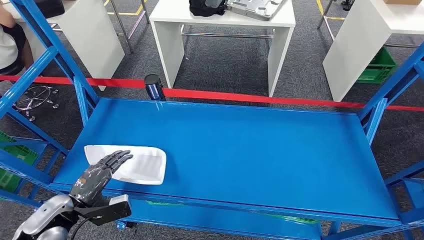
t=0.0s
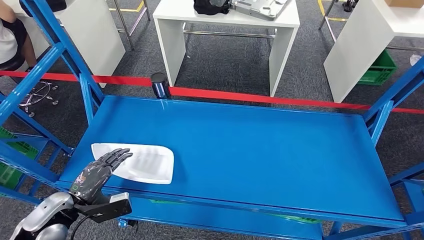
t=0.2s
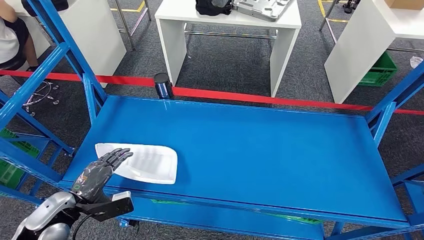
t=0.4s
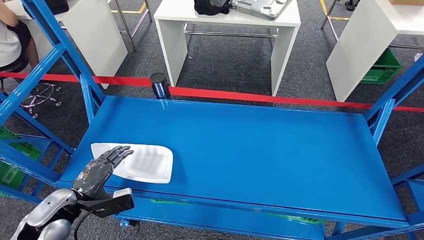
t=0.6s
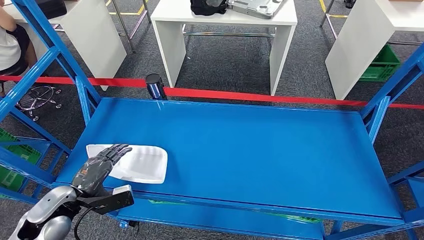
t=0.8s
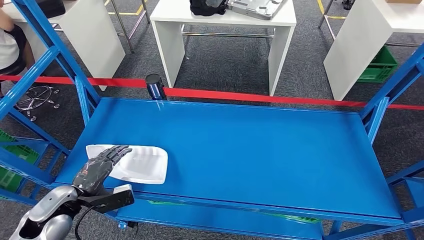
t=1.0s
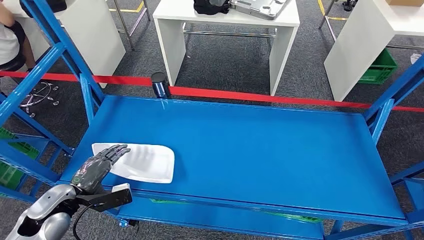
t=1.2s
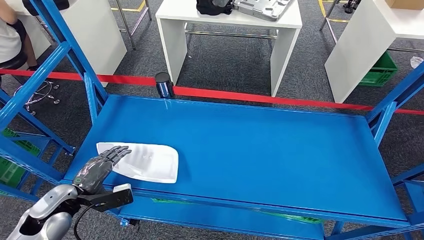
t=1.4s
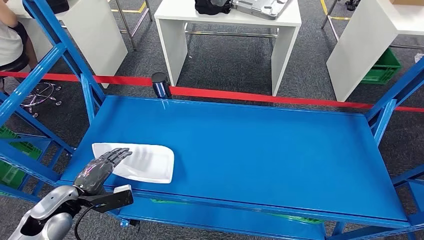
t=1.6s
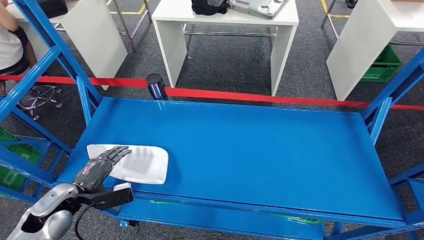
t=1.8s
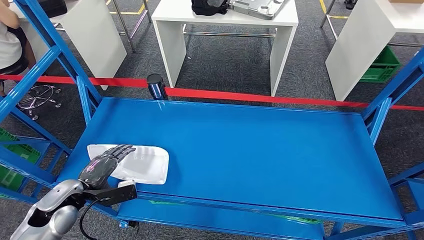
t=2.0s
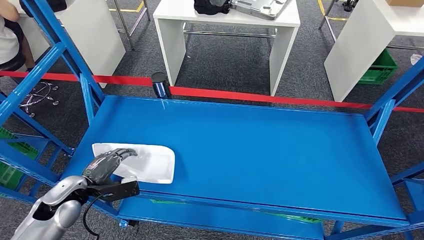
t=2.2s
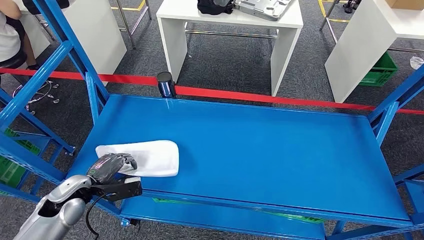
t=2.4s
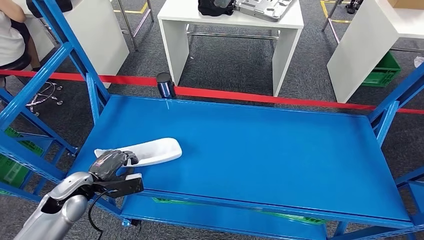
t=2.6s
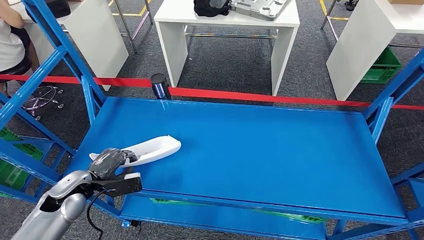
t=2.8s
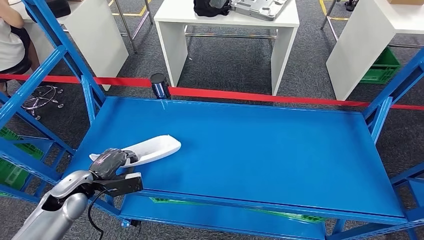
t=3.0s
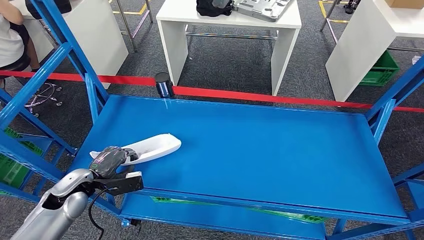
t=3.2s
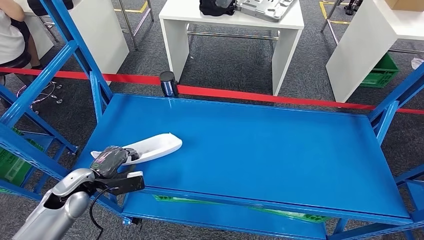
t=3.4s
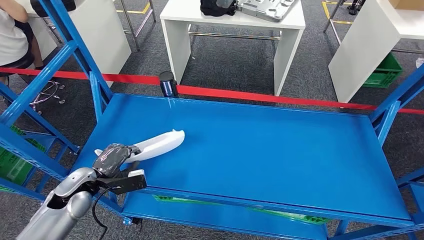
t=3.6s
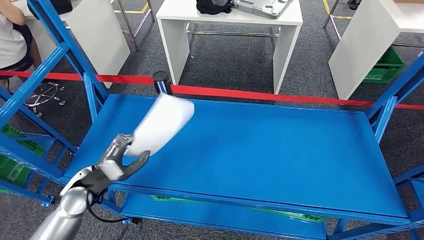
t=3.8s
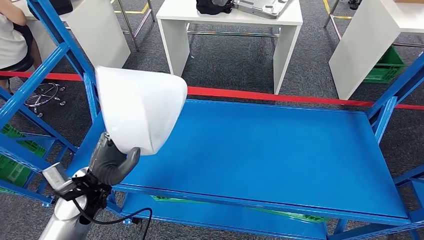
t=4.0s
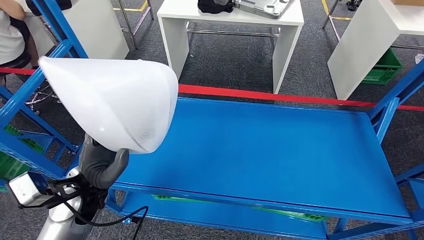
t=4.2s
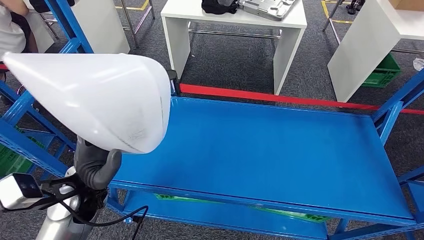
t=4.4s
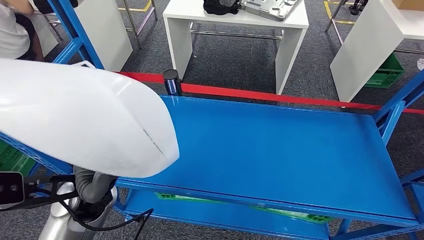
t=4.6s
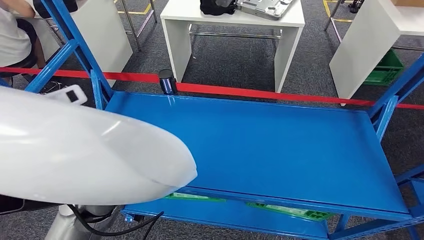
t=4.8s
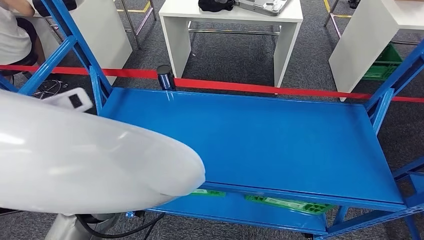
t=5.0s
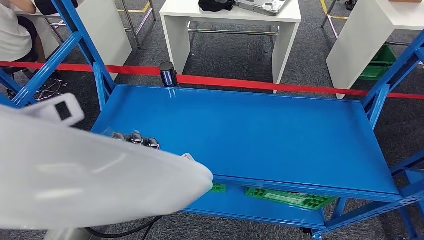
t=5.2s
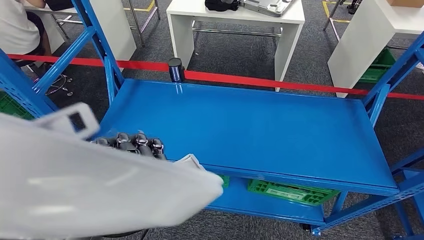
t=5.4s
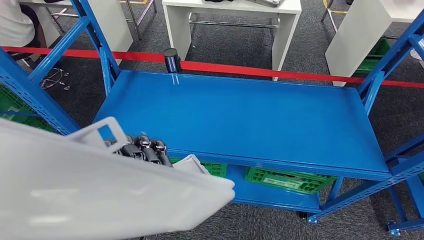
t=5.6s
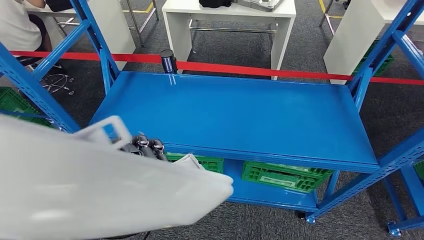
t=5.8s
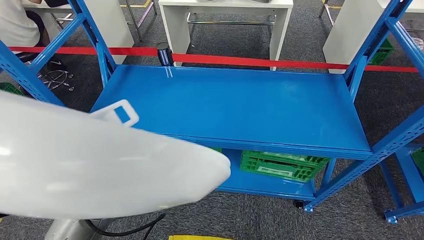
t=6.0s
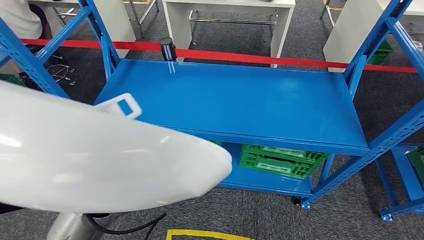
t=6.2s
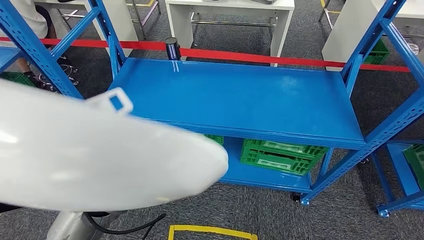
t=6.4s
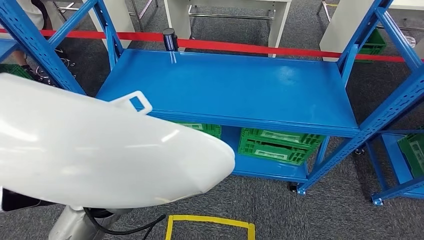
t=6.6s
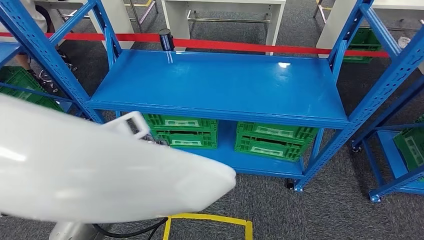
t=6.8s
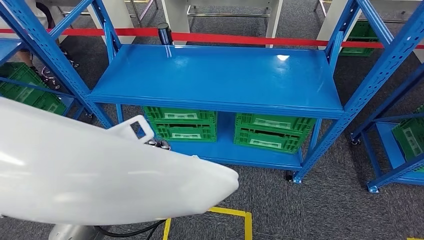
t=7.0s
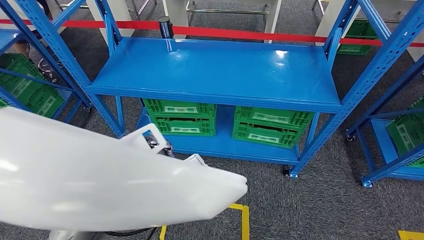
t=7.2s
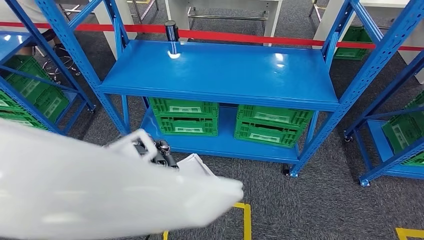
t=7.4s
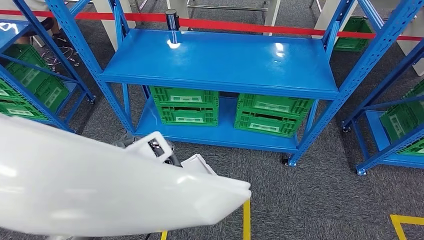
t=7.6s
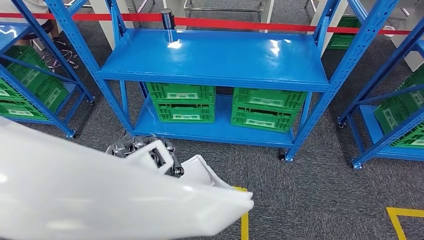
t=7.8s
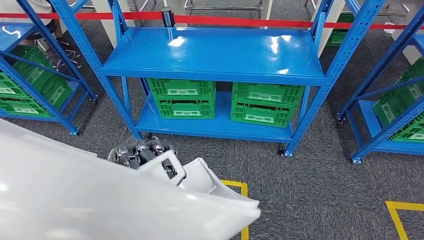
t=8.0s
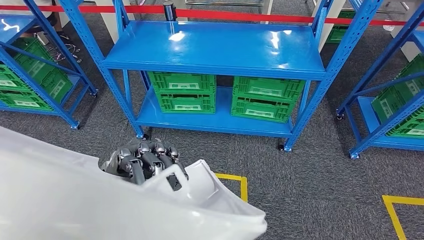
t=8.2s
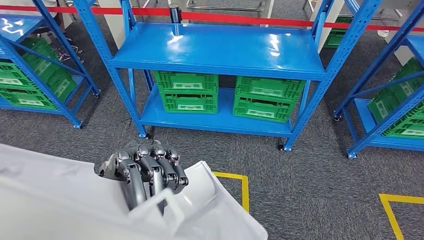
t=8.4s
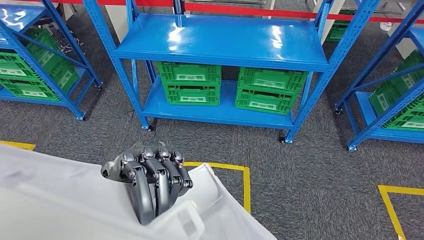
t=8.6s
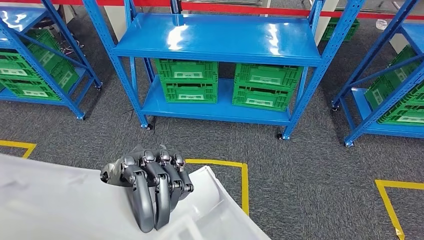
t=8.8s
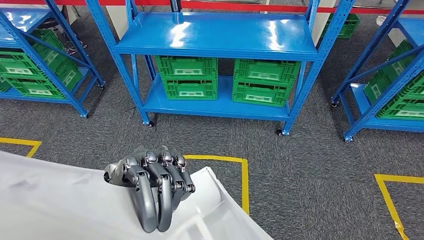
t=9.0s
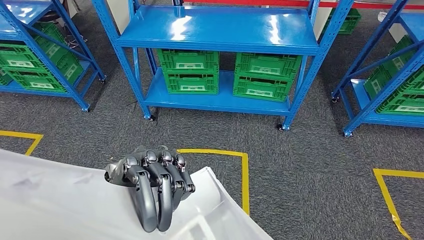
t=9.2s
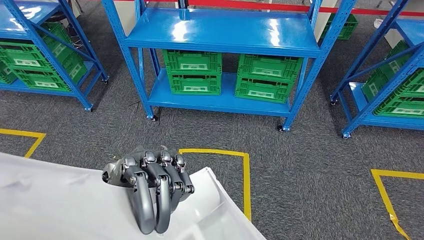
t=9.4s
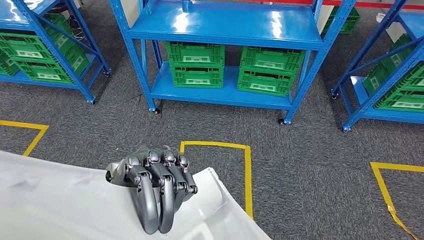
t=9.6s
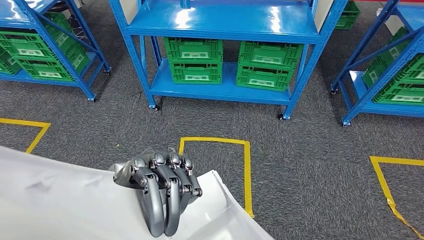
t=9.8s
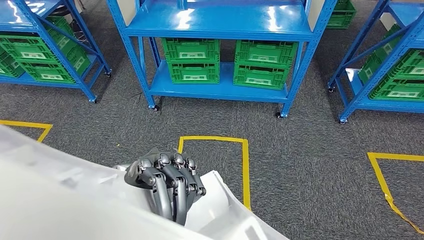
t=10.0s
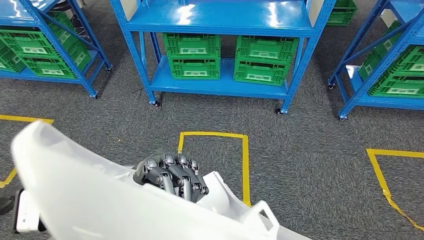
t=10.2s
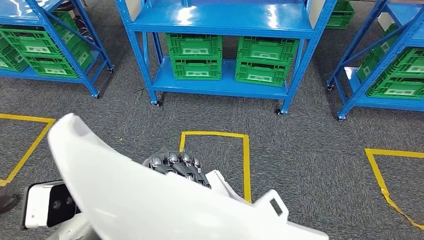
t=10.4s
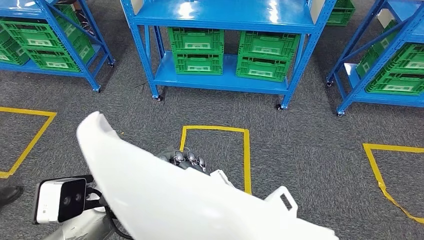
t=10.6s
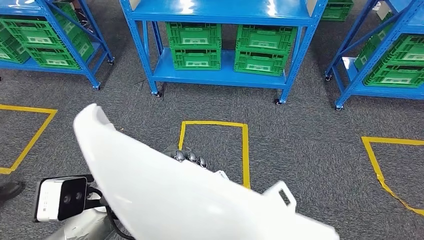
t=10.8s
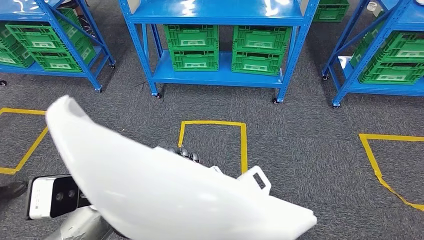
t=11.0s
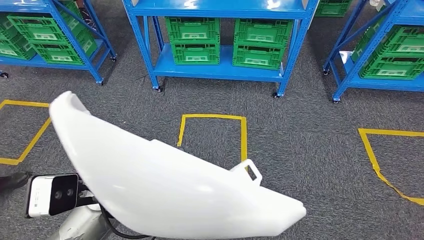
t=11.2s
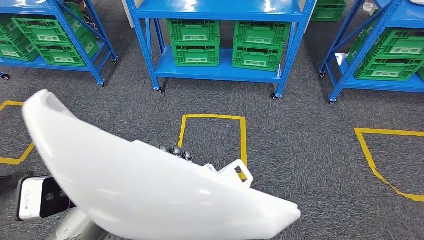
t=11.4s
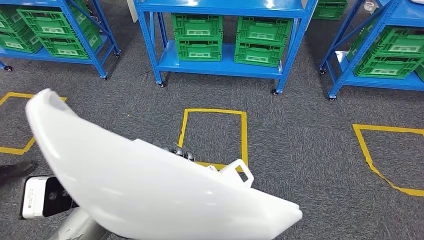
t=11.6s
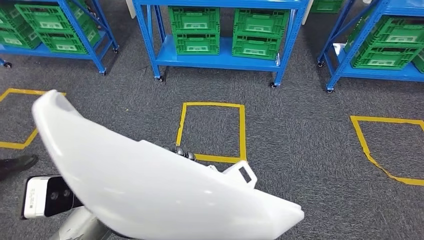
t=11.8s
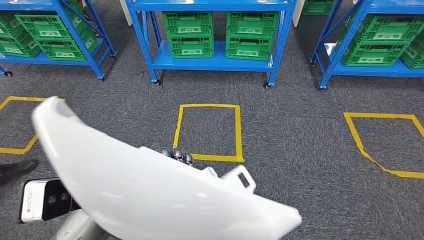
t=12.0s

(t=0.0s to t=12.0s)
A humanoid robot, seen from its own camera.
Step, t=0.0s - t=3.2s: Pick up the small component from the shelf.
t=1.6s - t=3.0s: The left hand shifts by about 5 cm.

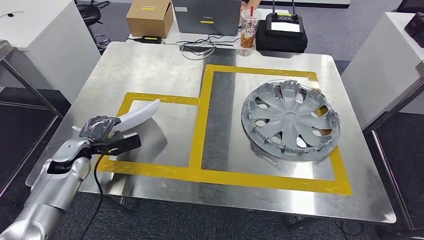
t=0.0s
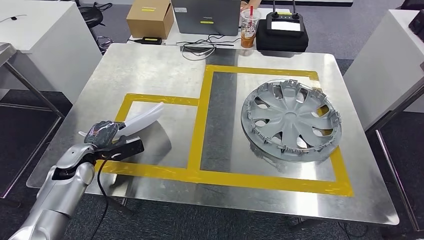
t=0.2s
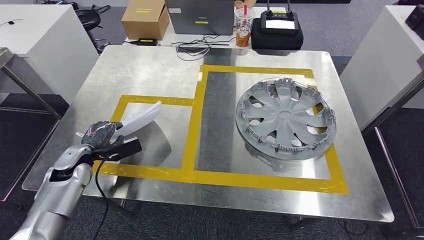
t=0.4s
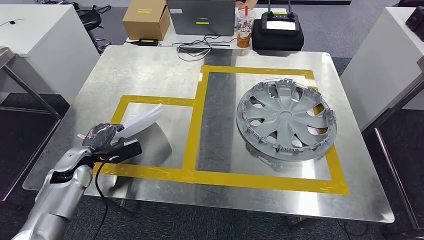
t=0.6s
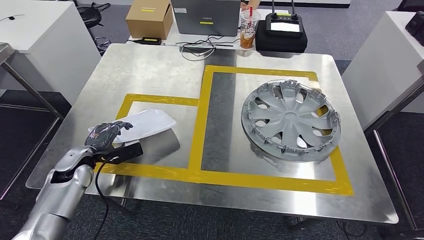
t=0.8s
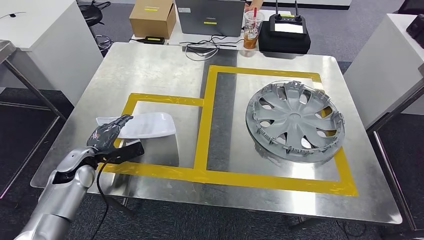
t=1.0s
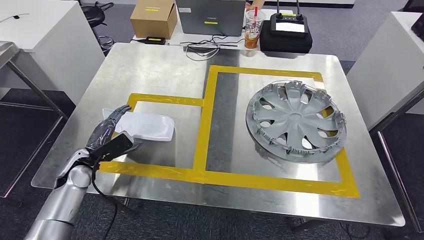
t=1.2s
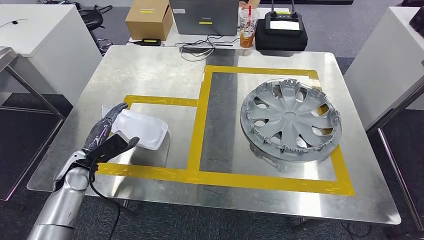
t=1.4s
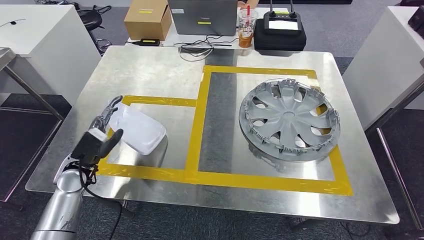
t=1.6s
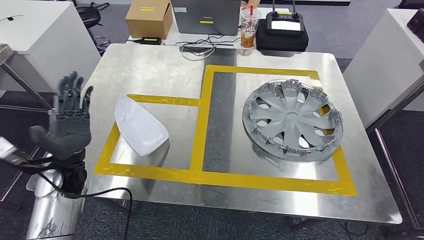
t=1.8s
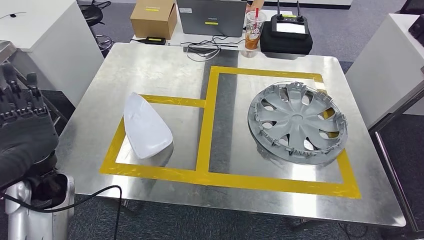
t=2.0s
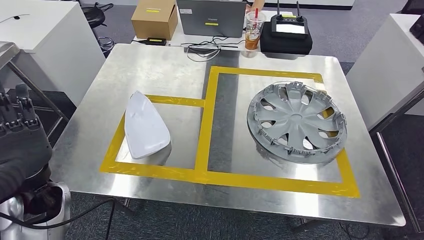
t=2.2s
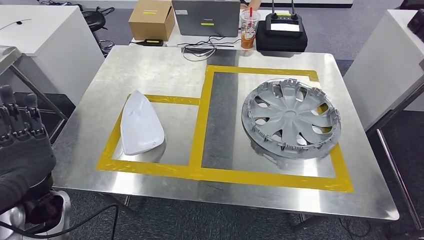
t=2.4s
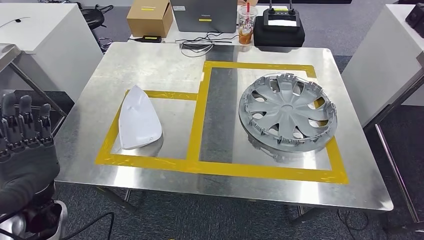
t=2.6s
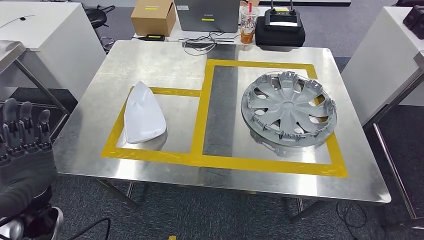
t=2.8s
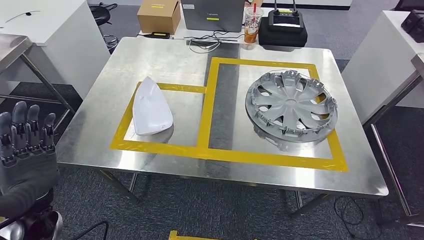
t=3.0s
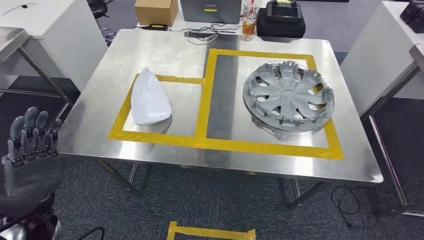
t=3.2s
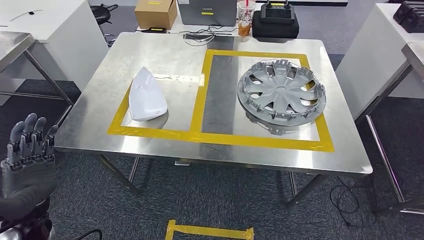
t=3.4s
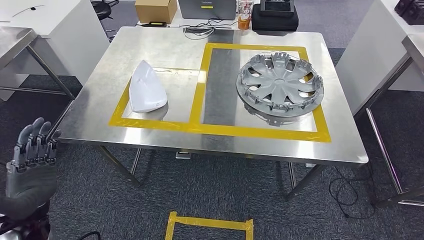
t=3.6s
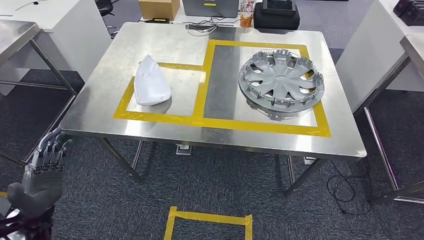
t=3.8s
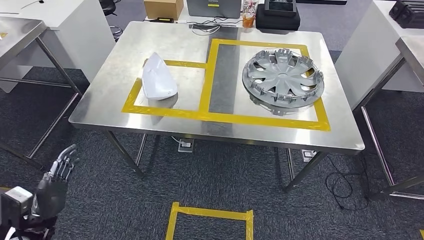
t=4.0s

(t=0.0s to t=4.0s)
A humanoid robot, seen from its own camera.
Step, t=1.0s - t=4.0s: Return to the initial position at the workbench.

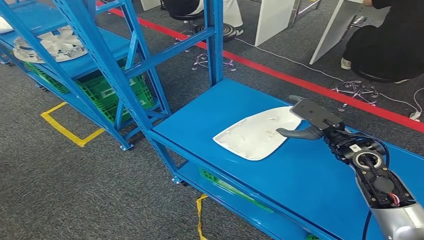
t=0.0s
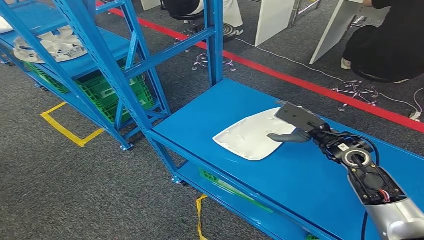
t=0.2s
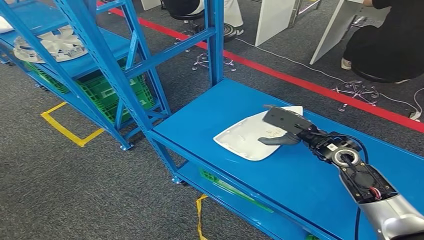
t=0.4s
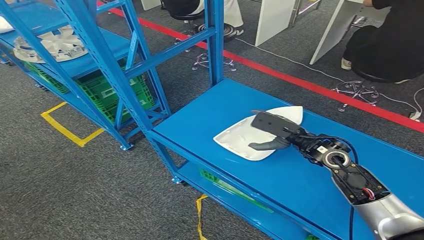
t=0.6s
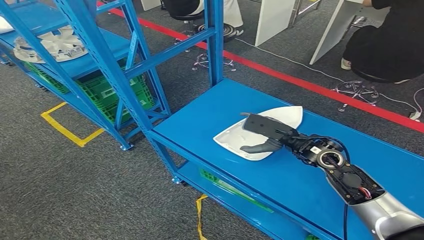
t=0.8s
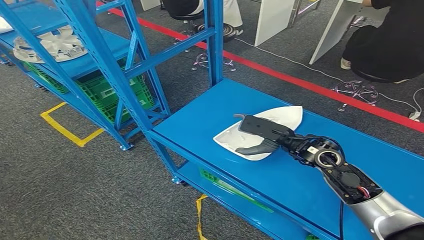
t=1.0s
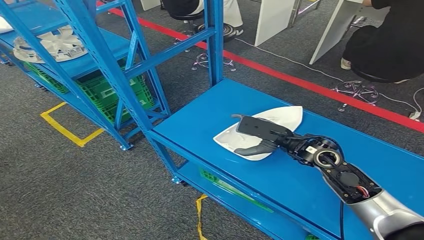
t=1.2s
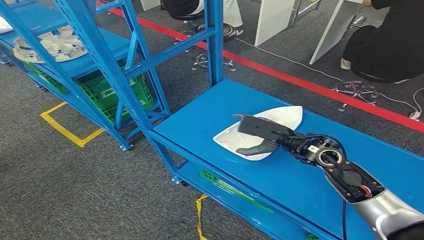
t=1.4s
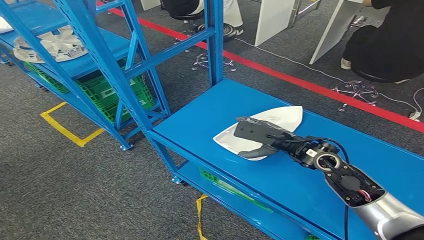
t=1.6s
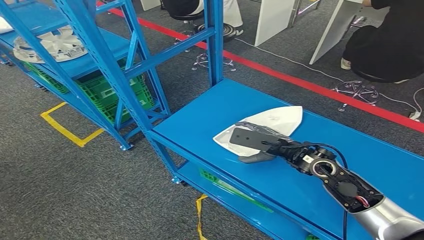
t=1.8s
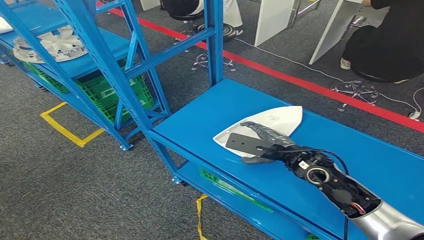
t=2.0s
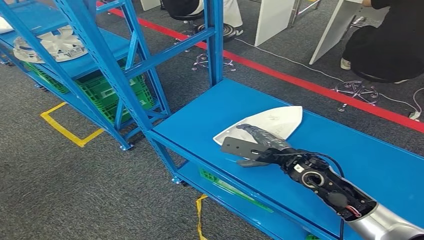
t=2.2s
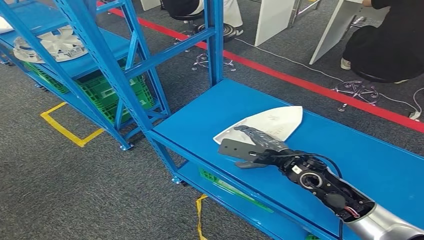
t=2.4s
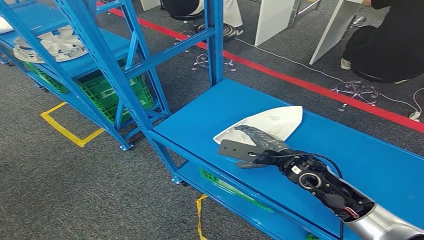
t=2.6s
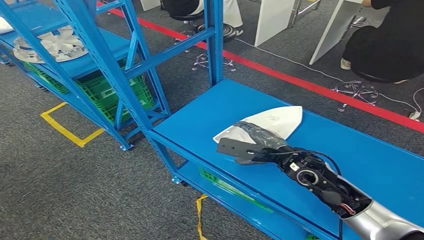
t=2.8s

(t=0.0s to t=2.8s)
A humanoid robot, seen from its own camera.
t=0.0s - t=1.4s: The right hand shifts approximately 5 cm to the left.
t=1.4s - t=2.8s: The right hand shifts by about 5 cm.
